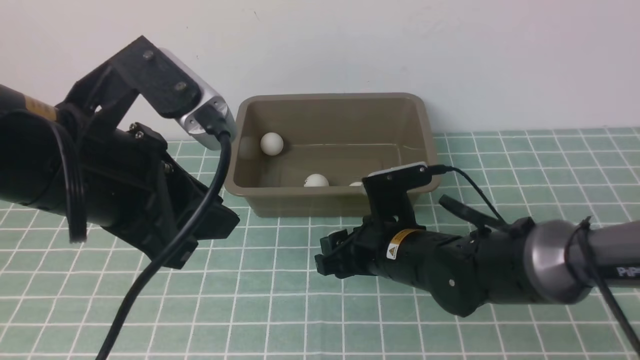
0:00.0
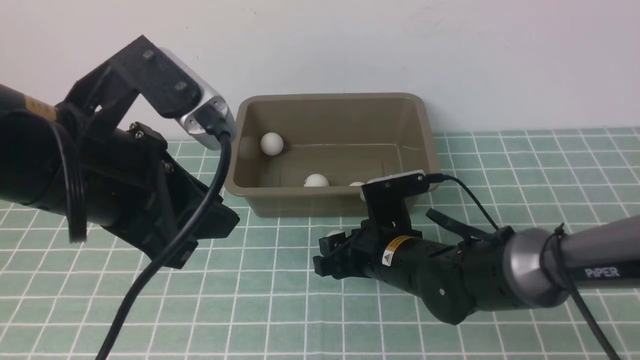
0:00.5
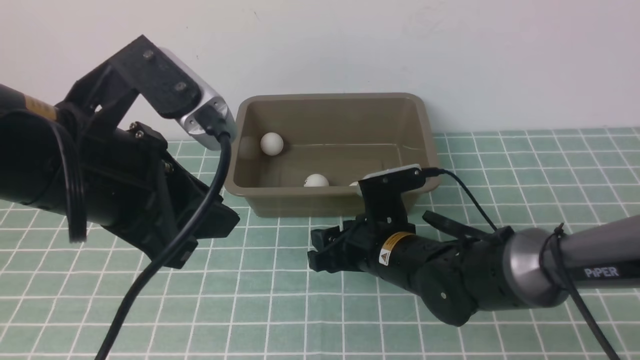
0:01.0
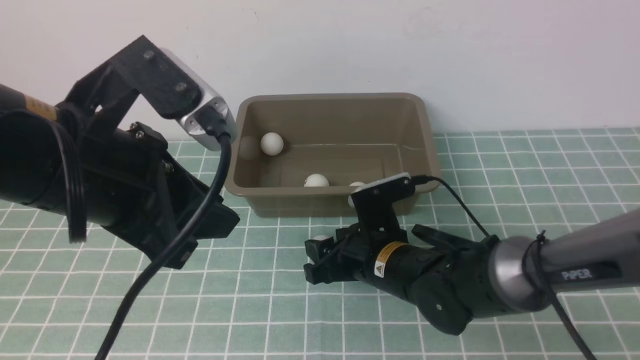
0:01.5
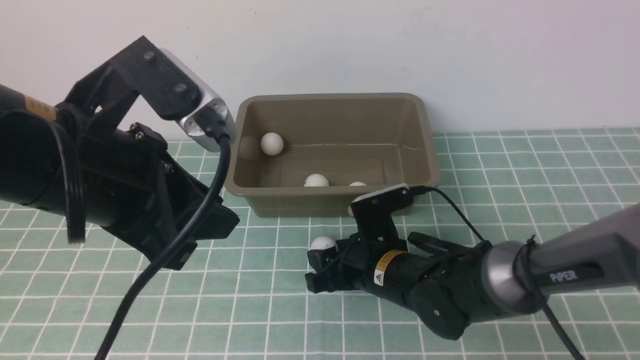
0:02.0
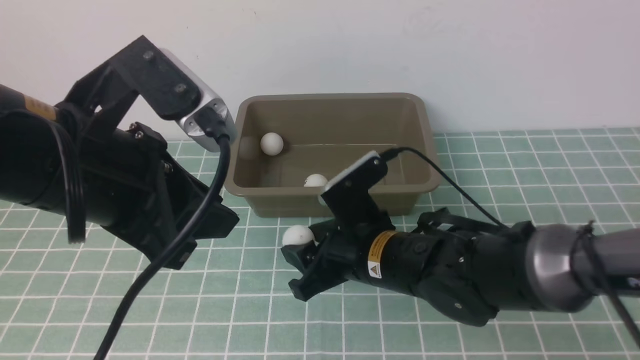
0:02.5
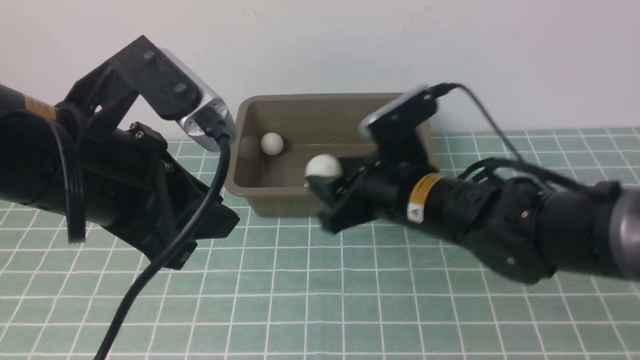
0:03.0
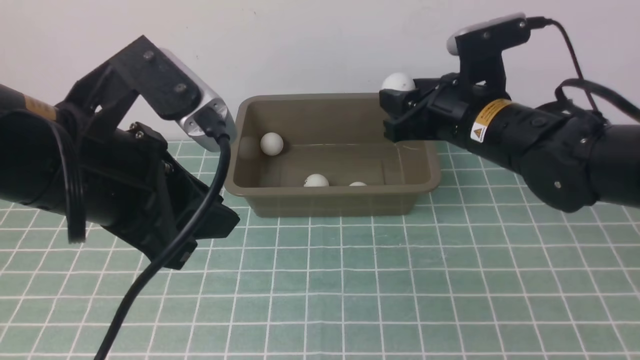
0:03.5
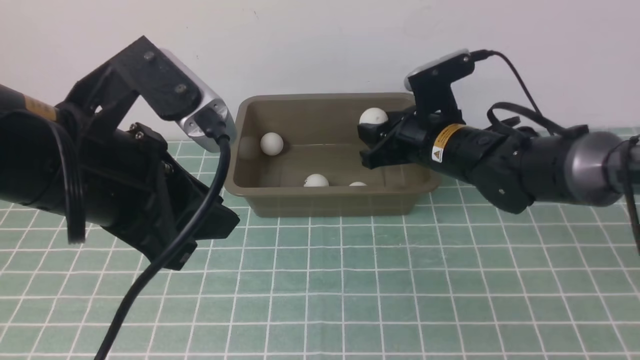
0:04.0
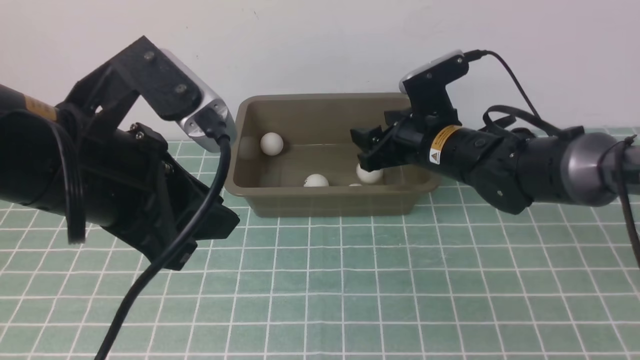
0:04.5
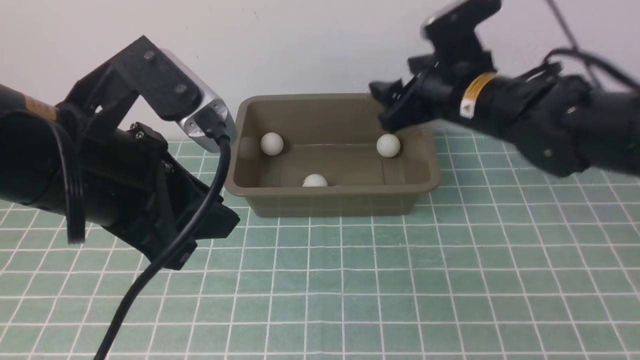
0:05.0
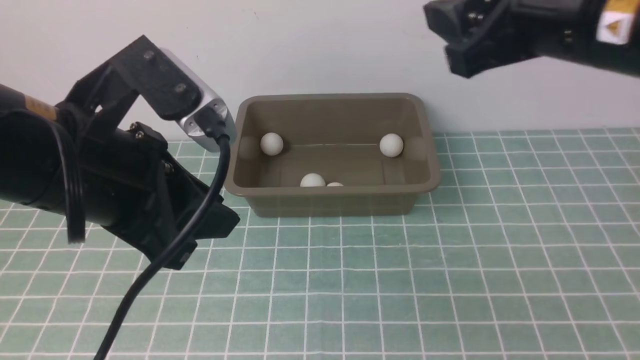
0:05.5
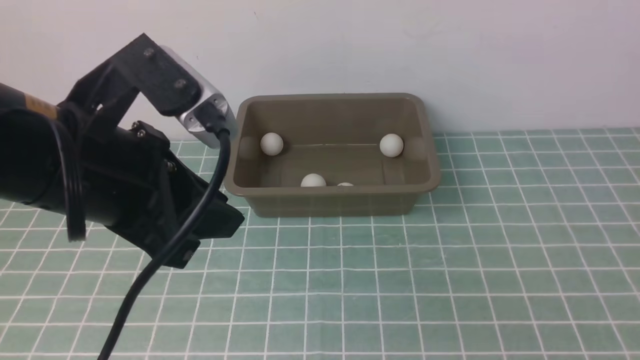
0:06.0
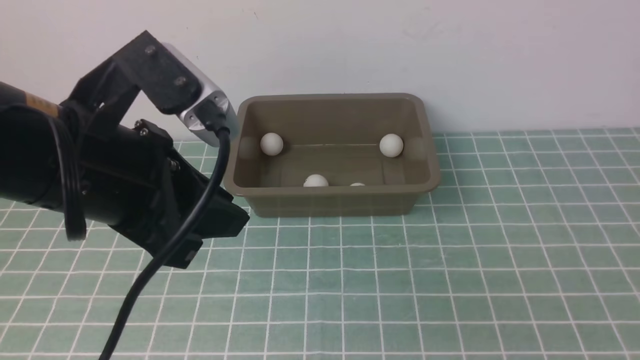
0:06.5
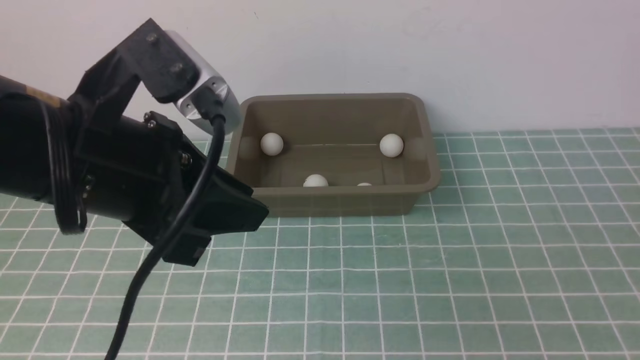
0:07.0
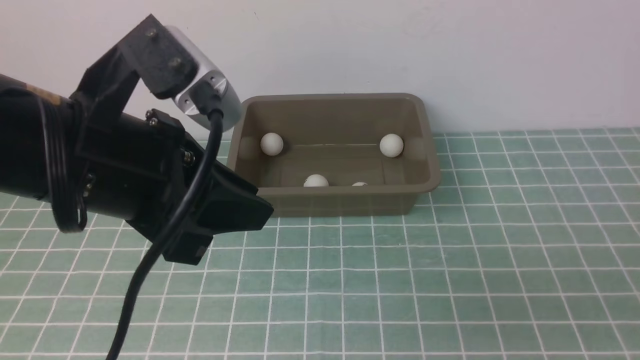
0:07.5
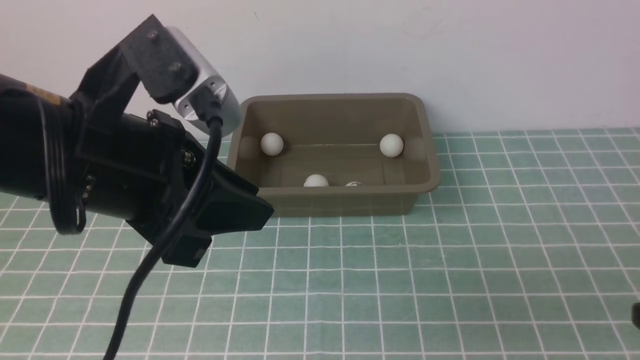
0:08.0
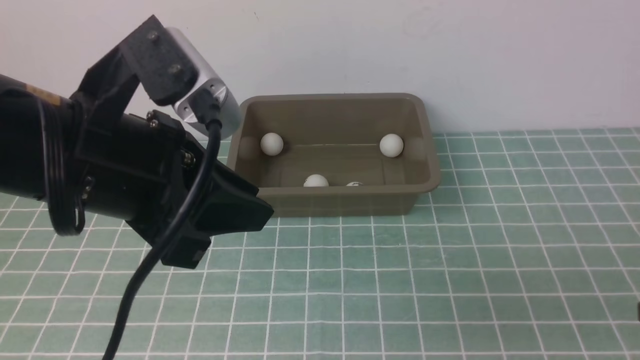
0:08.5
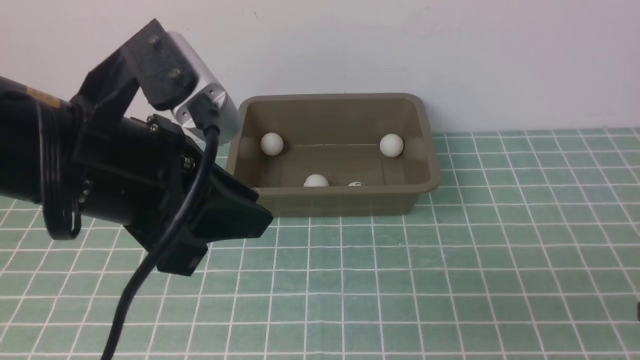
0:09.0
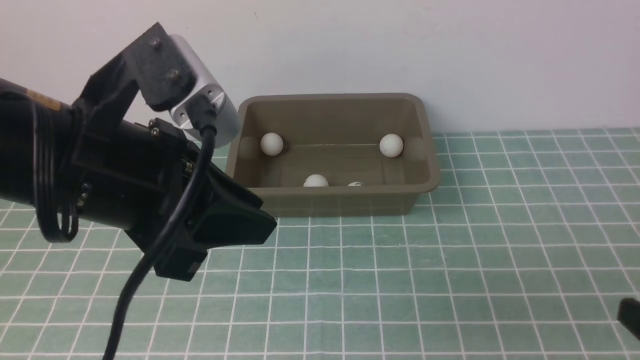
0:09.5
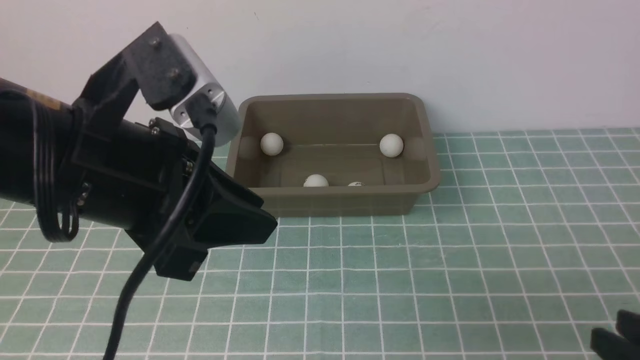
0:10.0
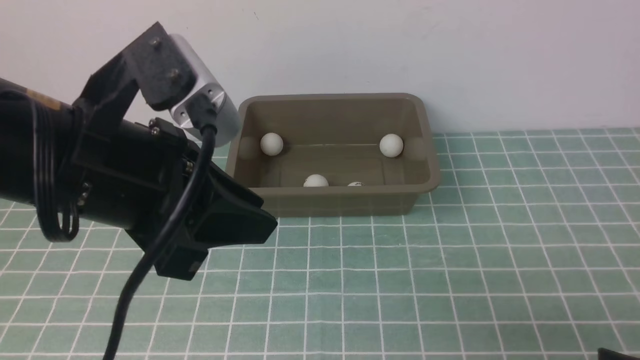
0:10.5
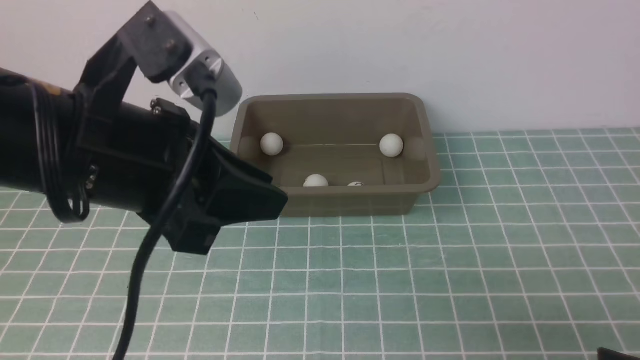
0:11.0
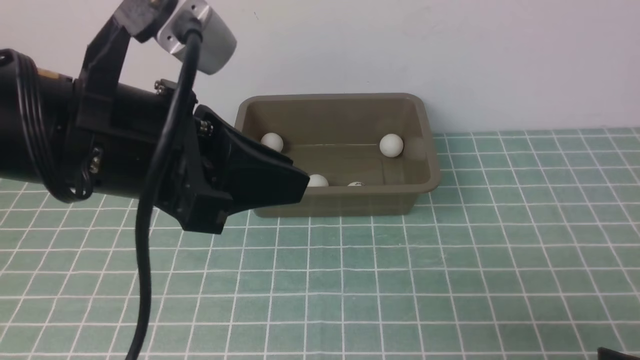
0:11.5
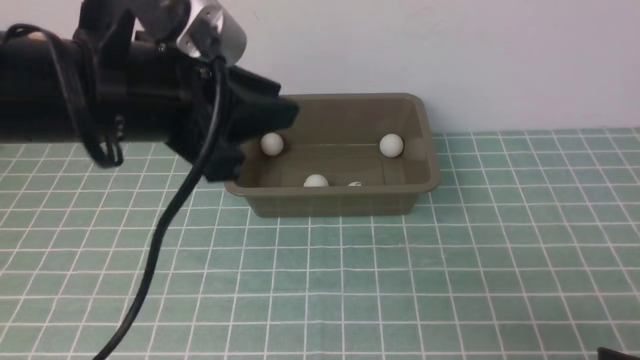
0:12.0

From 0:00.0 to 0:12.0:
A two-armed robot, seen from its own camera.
Step, from 0:00.0 to 0:02.0: use the right arm to clamp the table tennis ball closest to it.
Step, from 0:02.5 to 0:04.5: use the right arm to put the table tennis ball into the box.
From 0:00.0 to 0:02.0: The grippers make only small movements.
From 0:02.0 to 0:04.0: The right gripper goes roughly 15 cm forward, upward and to the right.
From 0:04.0 to 0:06.0: The right gripper goes about 50 cm backward, upward and to the right.
From 0:06.0 to 0:08.0: The right gripper goes approximately 20 cm downward, and closes up.
From 0:08.0 to 0:10.0: The right gripper goes some 5 cm downward.

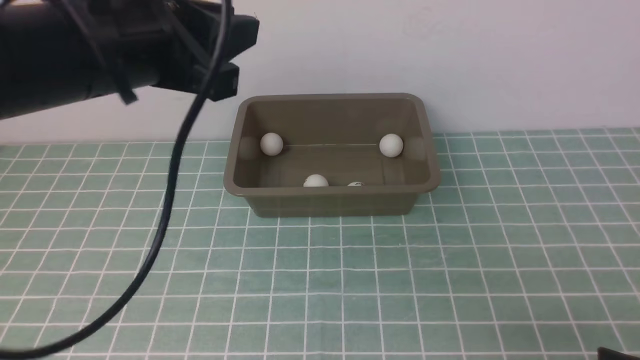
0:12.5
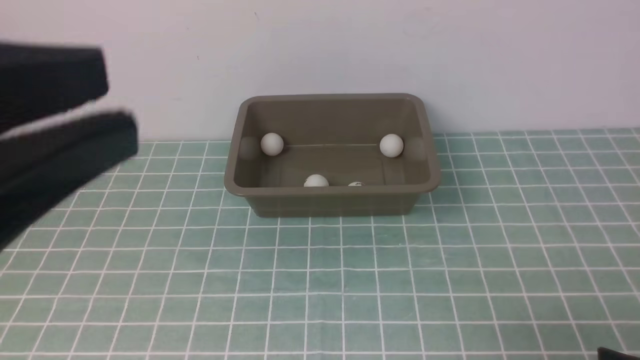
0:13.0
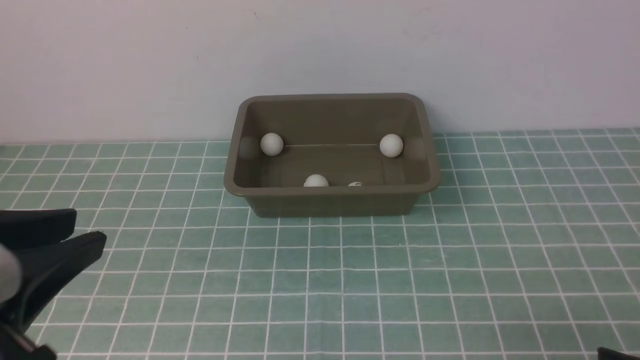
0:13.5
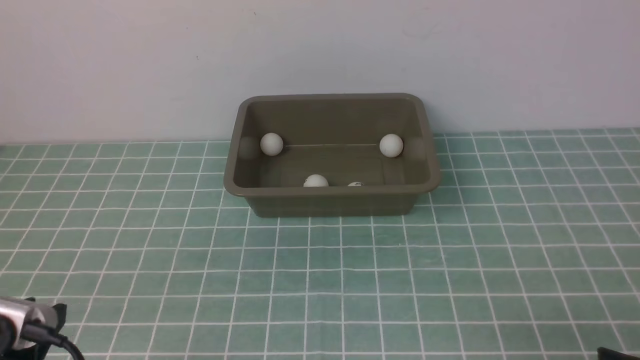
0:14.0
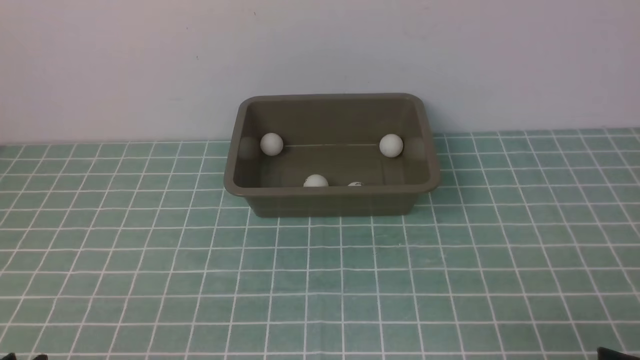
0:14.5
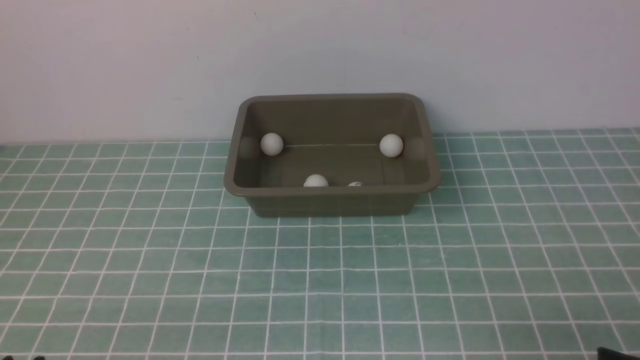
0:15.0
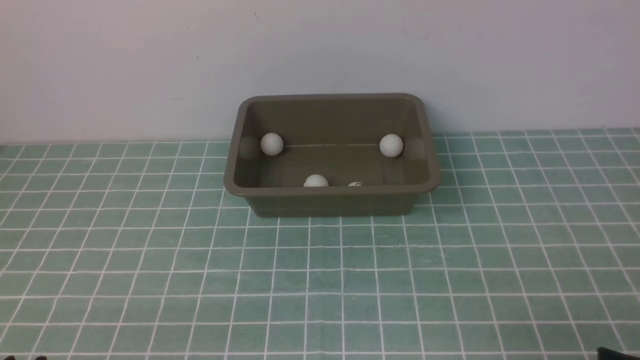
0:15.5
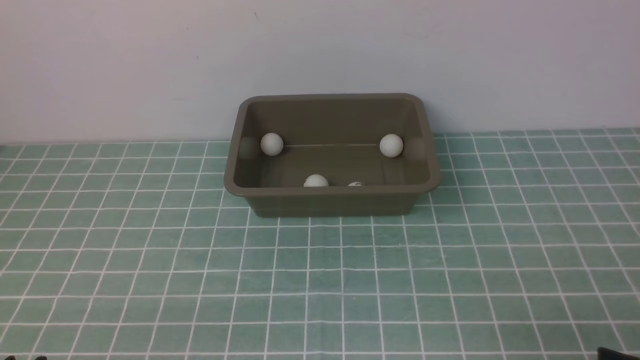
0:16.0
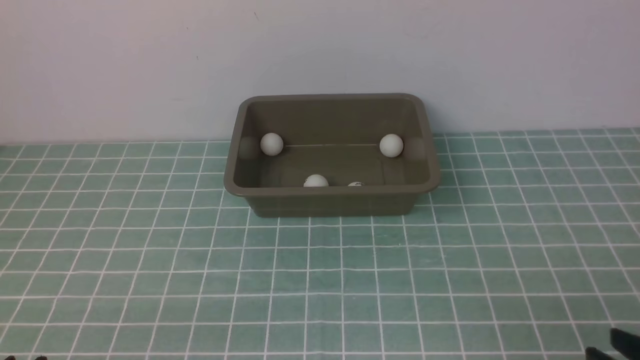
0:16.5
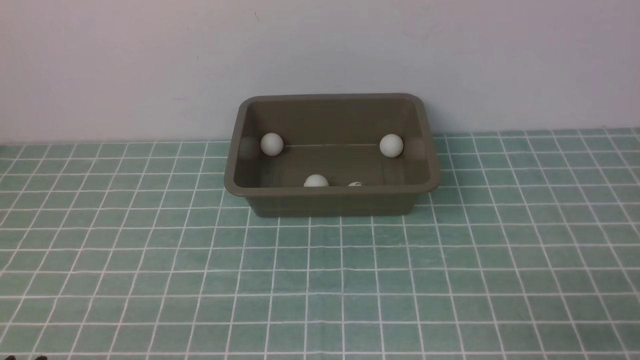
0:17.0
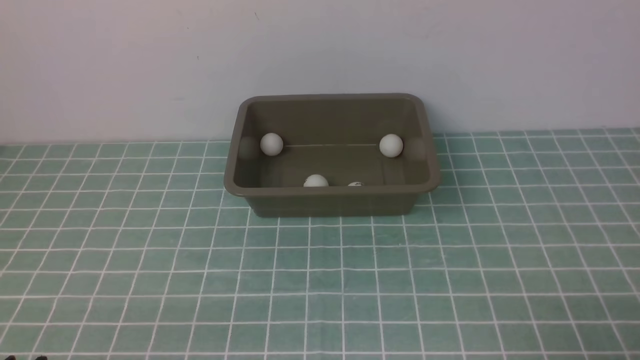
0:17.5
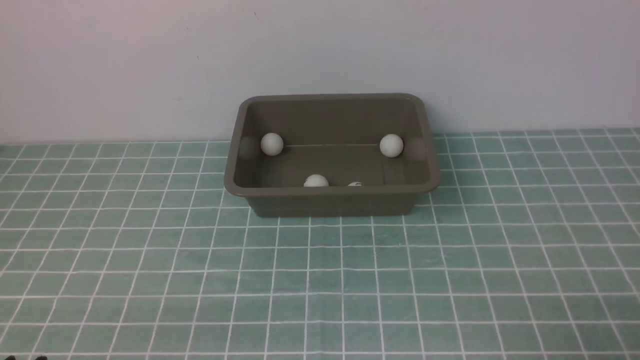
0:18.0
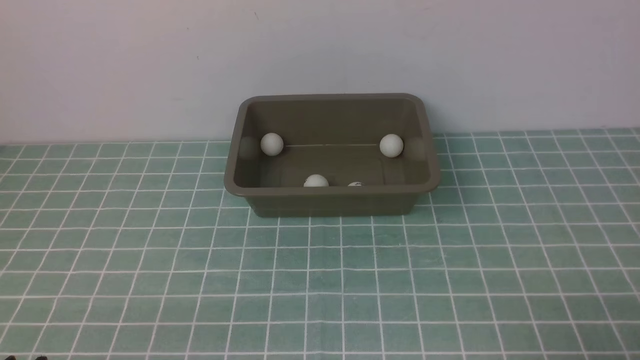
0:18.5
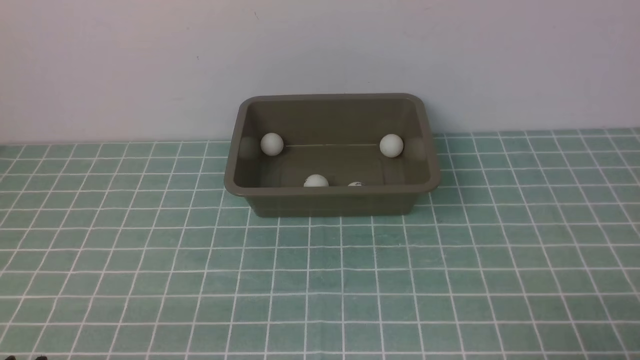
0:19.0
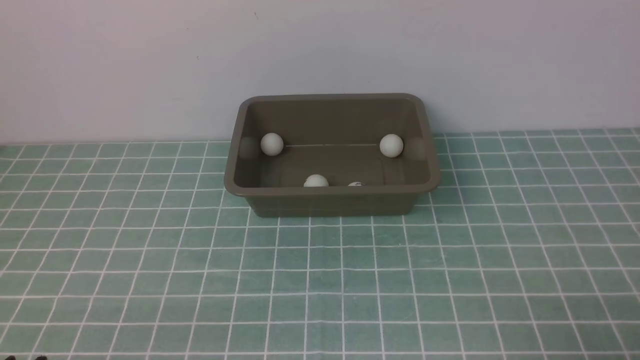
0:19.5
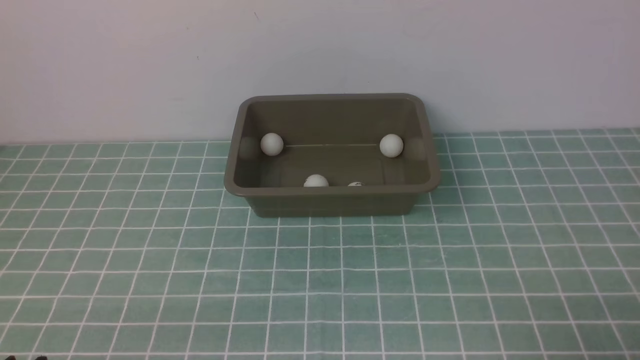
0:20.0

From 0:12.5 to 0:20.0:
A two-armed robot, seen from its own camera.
From 0:12.5 to 0:14.5: The left gripper shifts roughly 30 cm downward, backward and to the left.
From 0:18.0 to 0:20.0: Both grippers stay about where they are.
